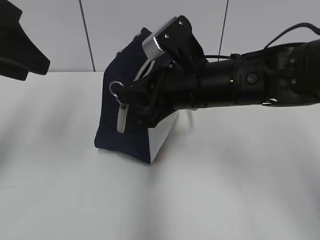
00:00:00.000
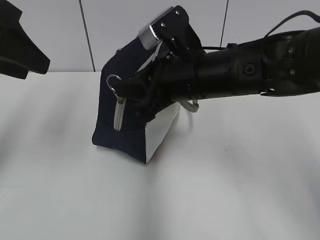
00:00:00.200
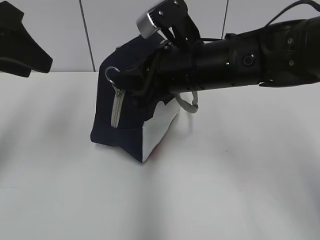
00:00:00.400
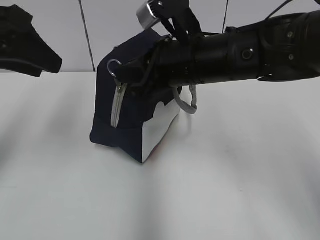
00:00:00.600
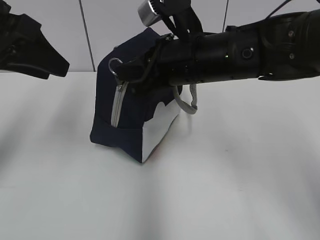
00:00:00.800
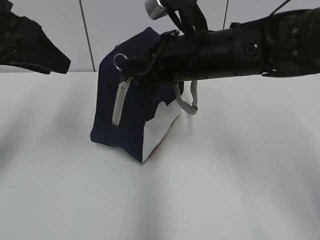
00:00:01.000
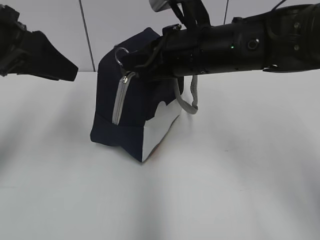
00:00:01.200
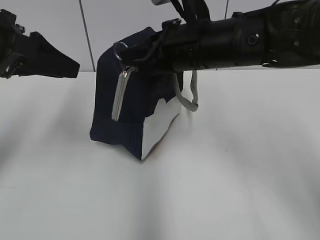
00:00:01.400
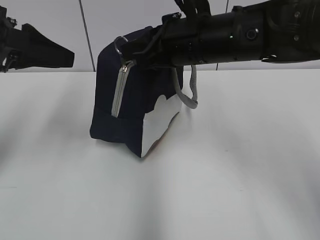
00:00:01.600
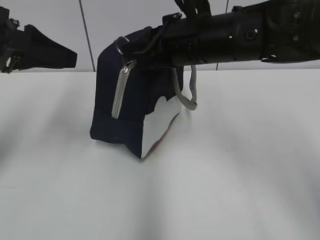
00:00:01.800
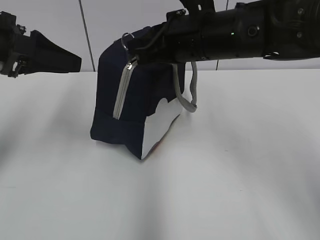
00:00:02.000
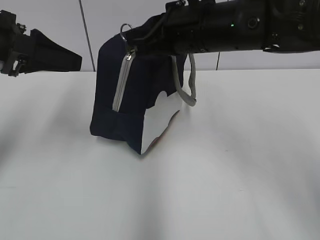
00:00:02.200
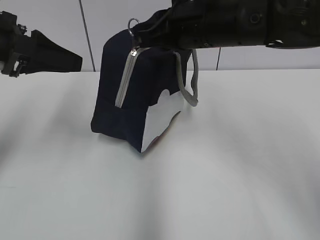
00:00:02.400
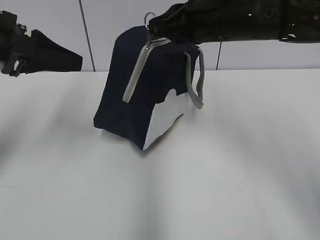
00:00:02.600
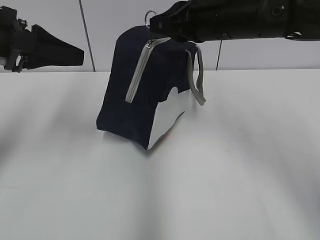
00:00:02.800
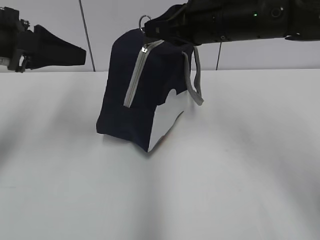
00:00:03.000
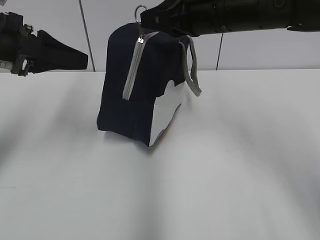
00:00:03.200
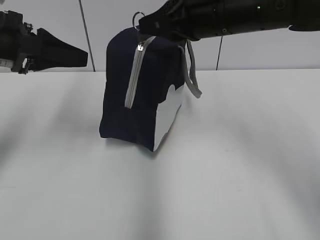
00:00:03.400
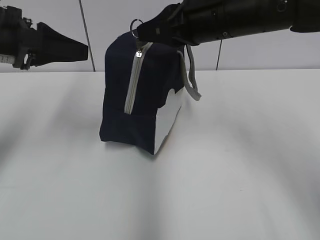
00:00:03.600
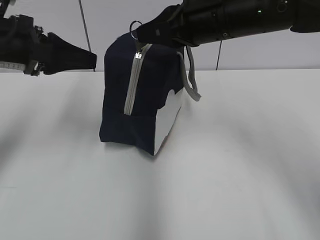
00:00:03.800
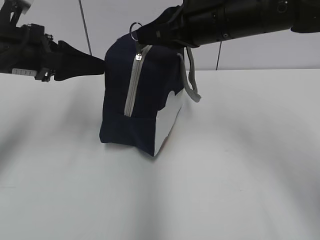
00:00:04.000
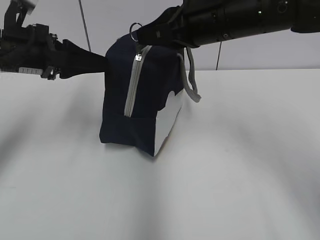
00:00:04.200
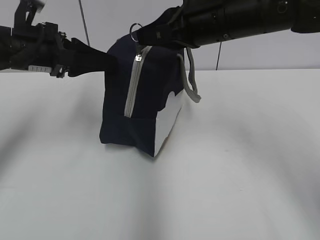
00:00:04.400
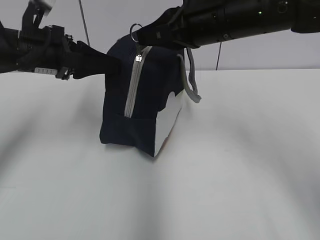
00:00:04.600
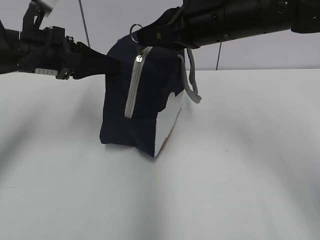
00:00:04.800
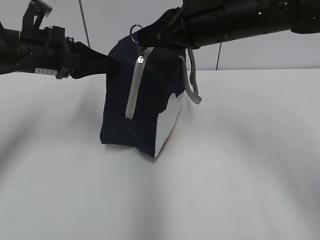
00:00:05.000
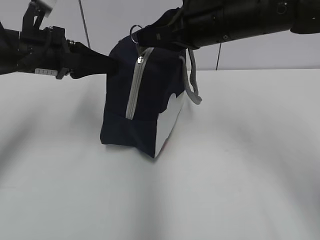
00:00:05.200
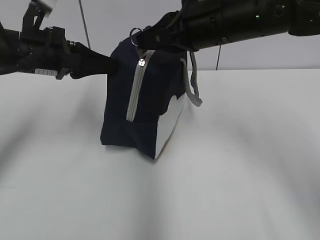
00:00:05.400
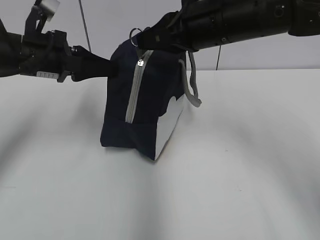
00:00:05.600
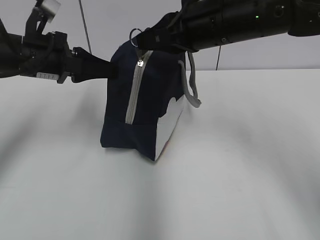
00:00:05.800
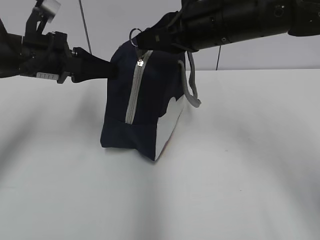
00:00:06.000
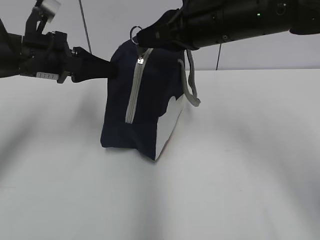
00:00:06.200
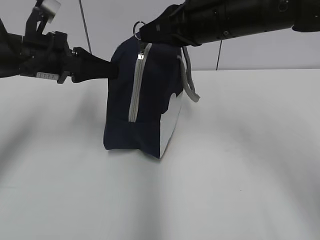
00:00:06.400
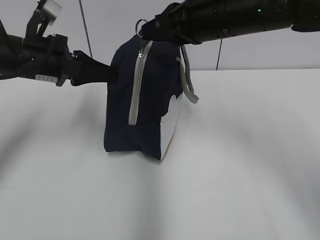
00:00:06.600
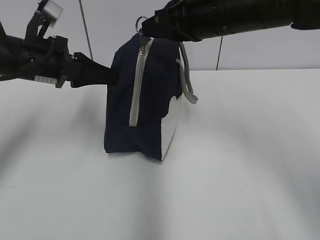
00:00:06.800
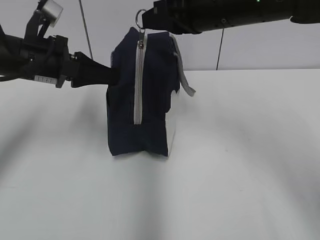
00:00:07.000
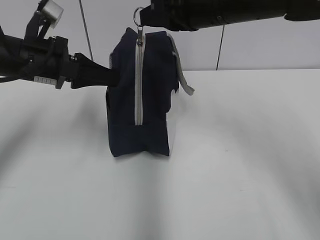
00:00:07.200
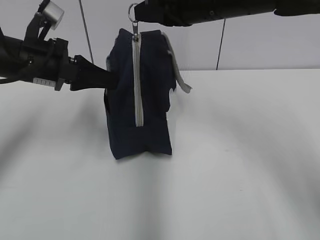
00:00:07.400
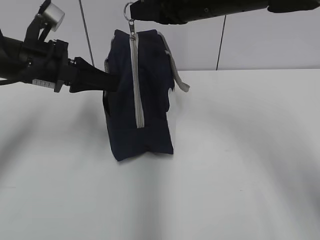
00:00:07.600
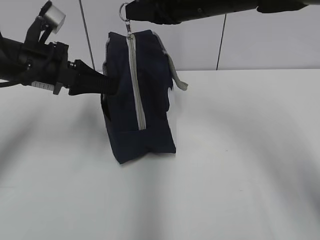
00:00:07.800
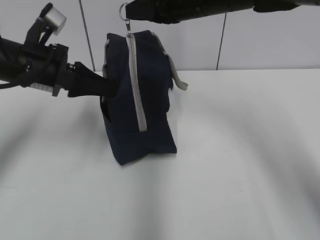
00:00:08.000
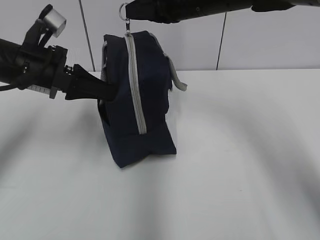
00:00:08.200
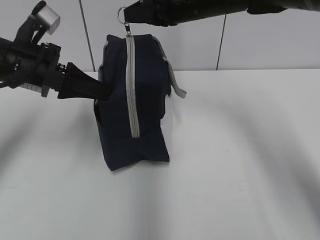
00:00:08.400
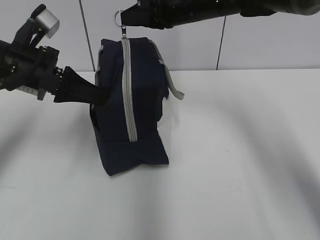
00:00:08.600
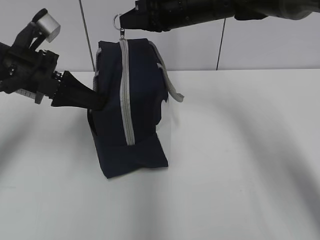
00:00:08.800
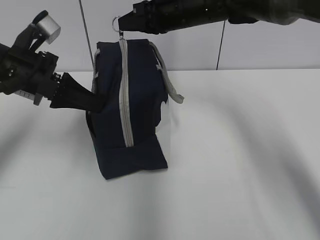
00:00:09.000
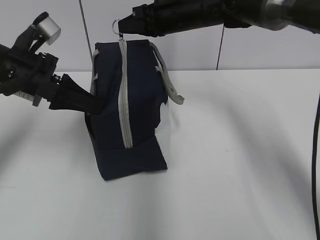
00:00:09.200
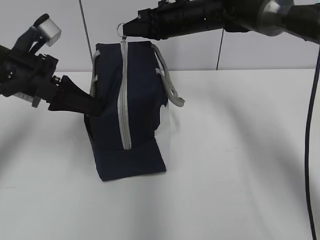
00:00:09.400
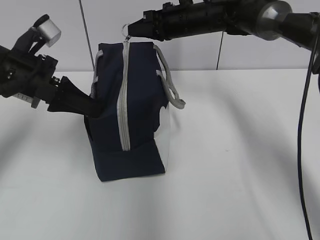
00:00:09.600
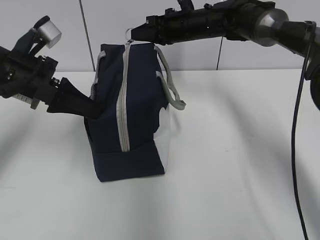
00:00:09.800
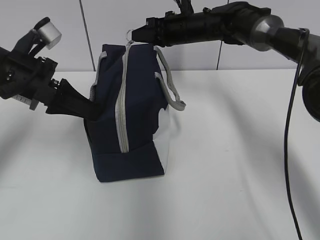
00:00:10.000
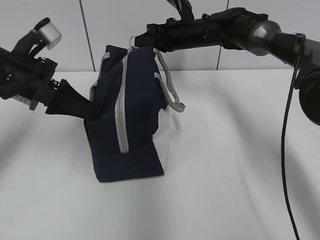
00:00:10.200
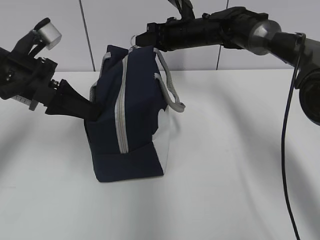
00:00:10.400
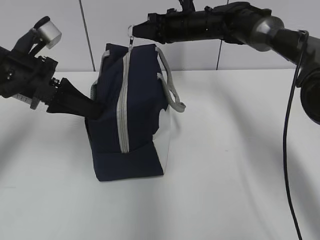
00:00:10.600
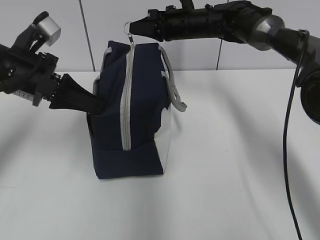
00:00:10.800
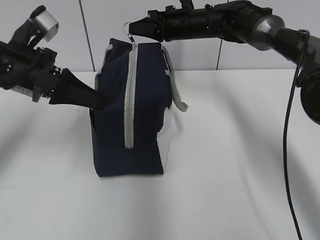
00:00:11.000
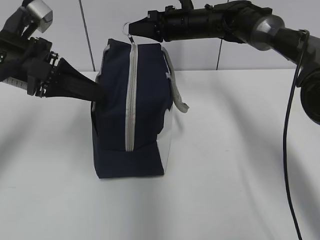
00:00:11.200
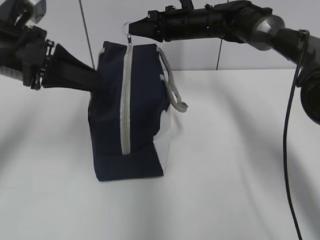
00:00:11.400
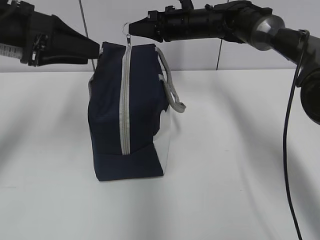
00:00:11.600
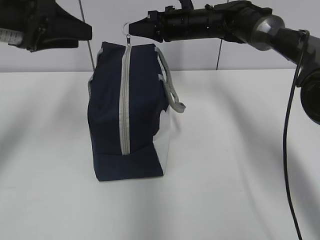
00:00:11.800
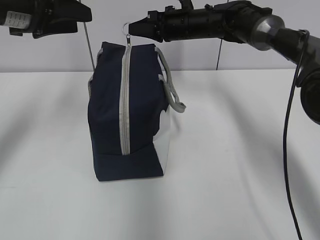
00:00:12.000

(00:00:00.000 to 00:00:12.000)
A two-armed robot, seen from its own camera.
Step, 00:00:00.000 - 00:00:05.800: Grab the lunch bag with your left hand.
00:00:00.000 - 00:00:01.600: The right gripper changes place by some 5 cm; the left gripper shifts by roughly 5 cm.
00:00:01.600 - 00:00:03.000: The grippers stay close to where they were, moving slightly.
00:00:03.000 - 00:00:04.400: The left gripper moves approximately 5 cm.
00:00:04.400 - 00:00:06.000: The left gripper closes up.
00:00:06.000 - 00:00:07.600: The grippers move only a little.
00:00:07.600 - 00:00:09.000: The right gripper moves forward, roughly 10 cm.
00:00:09.000 - 00:00:10.400: The right gripper shifts roughly 10 cm downward and forward.
00:00:10.400 - 00:00:12.000: The left gripper heads upward, covering about 10 cm, and opens its fingers.

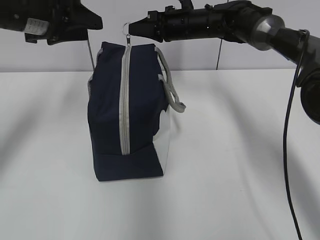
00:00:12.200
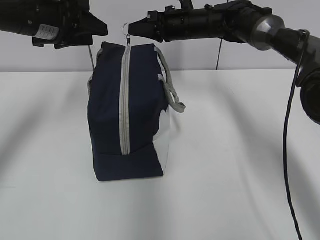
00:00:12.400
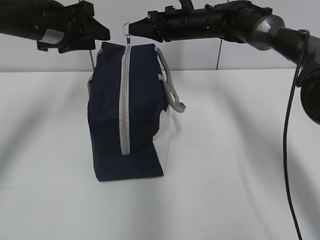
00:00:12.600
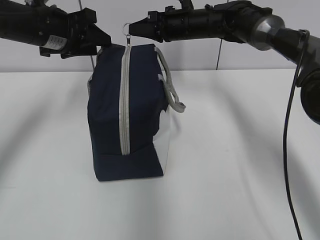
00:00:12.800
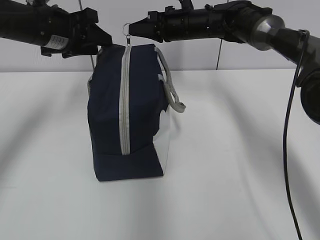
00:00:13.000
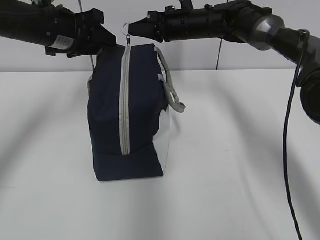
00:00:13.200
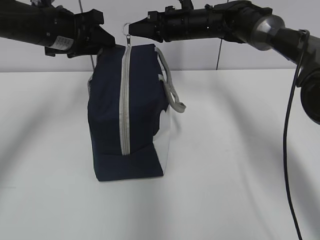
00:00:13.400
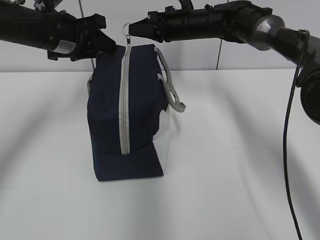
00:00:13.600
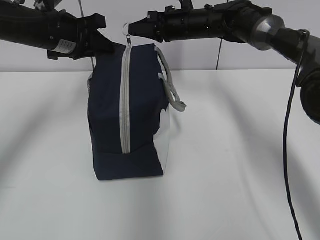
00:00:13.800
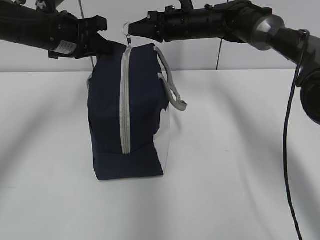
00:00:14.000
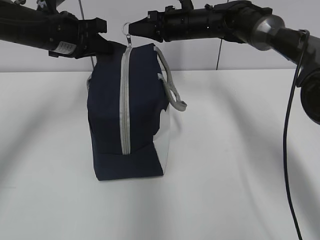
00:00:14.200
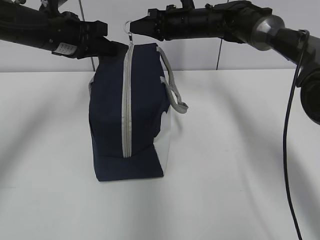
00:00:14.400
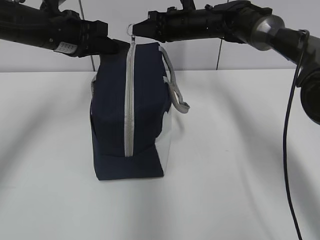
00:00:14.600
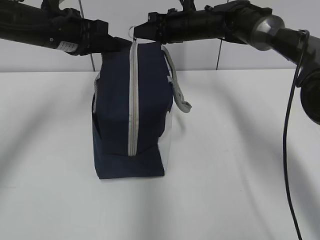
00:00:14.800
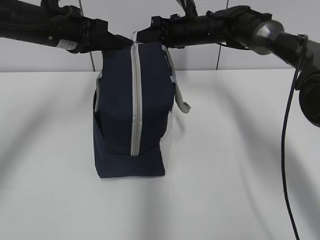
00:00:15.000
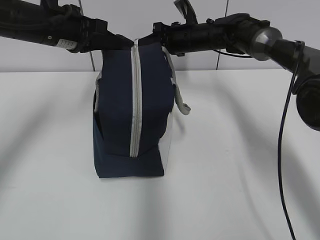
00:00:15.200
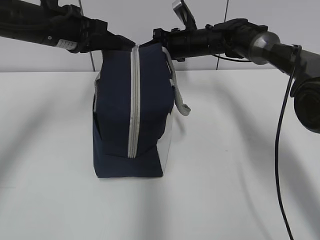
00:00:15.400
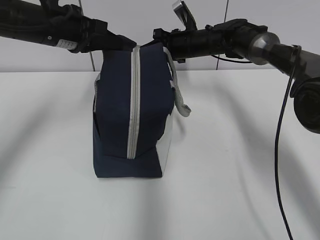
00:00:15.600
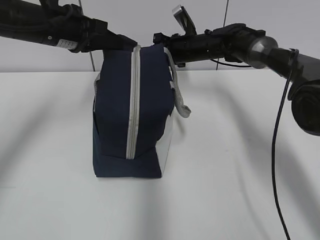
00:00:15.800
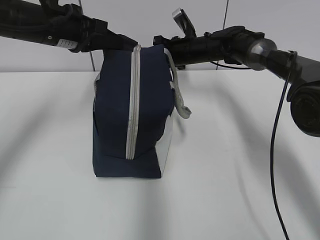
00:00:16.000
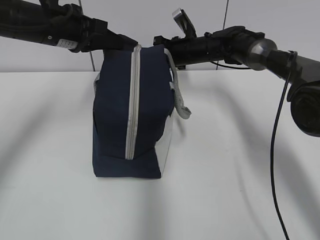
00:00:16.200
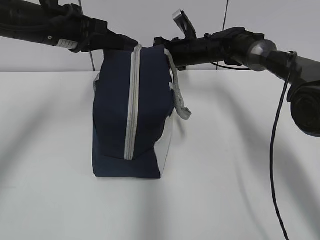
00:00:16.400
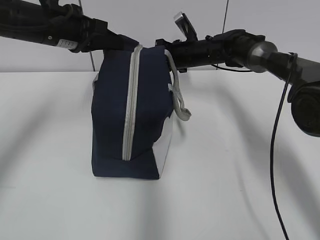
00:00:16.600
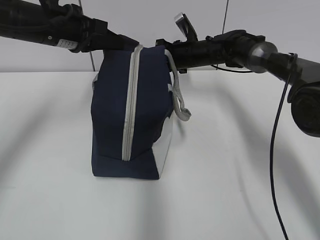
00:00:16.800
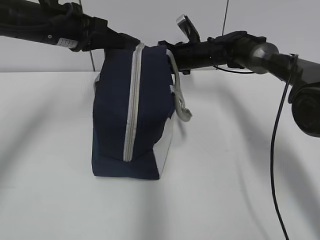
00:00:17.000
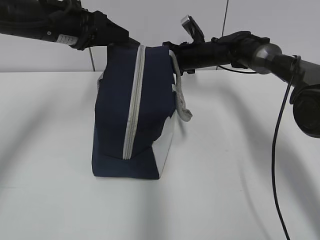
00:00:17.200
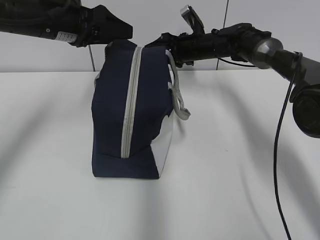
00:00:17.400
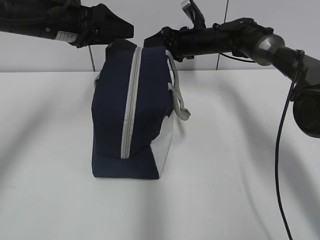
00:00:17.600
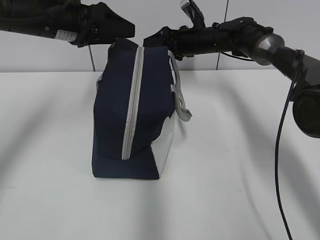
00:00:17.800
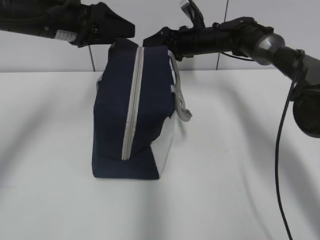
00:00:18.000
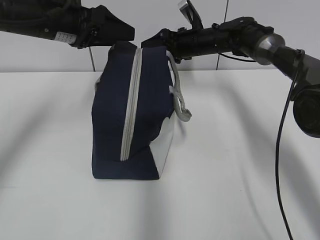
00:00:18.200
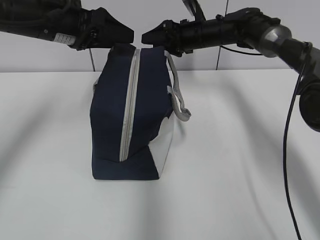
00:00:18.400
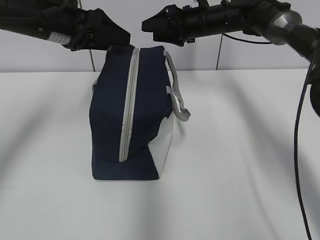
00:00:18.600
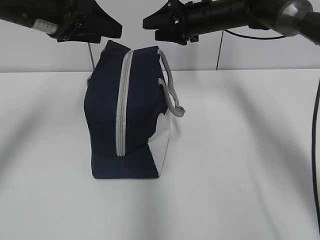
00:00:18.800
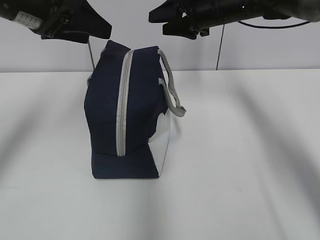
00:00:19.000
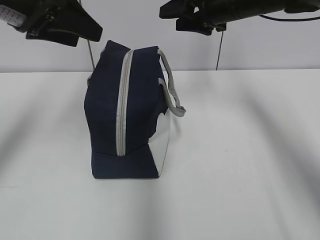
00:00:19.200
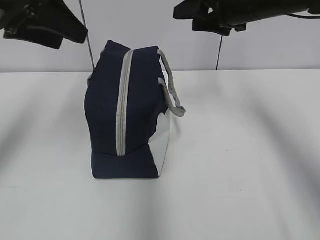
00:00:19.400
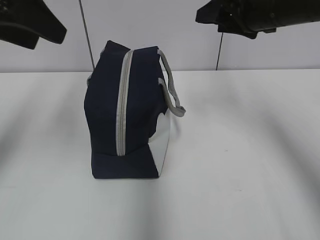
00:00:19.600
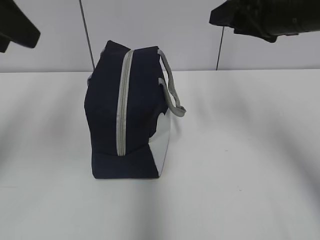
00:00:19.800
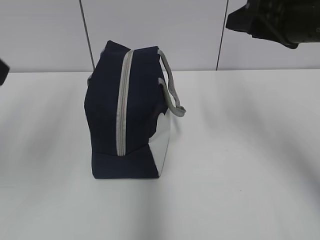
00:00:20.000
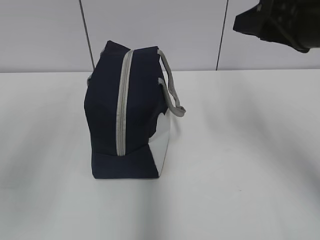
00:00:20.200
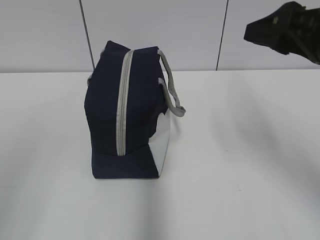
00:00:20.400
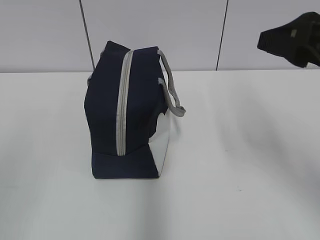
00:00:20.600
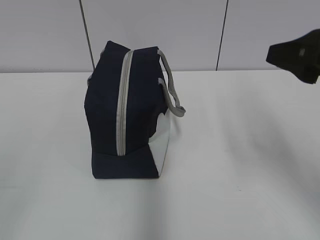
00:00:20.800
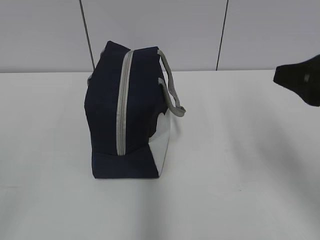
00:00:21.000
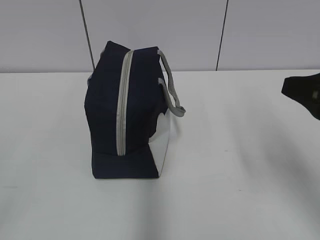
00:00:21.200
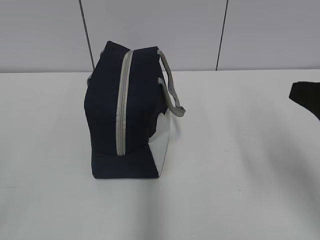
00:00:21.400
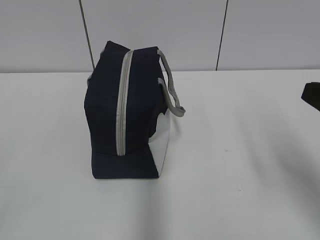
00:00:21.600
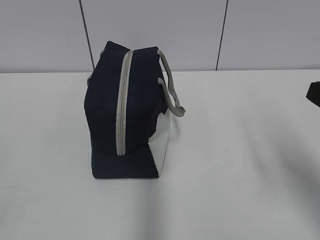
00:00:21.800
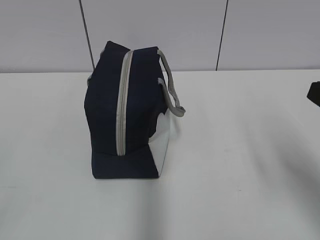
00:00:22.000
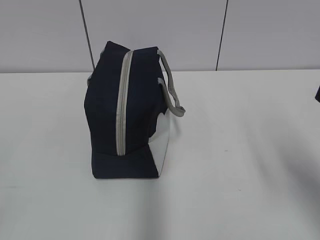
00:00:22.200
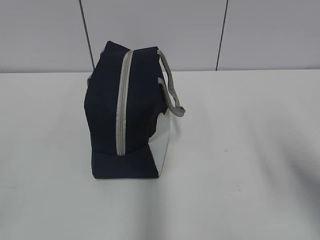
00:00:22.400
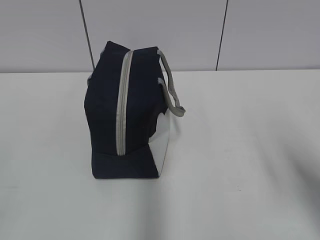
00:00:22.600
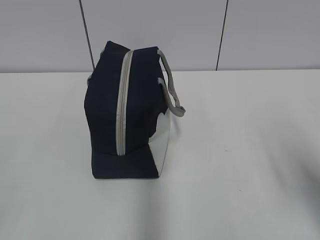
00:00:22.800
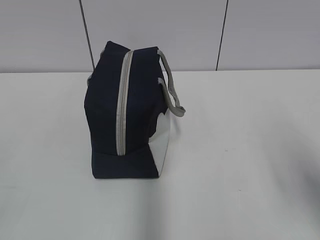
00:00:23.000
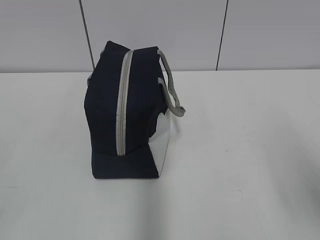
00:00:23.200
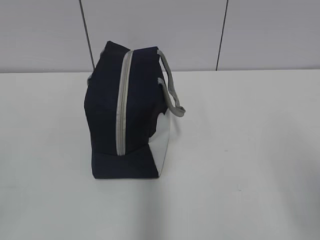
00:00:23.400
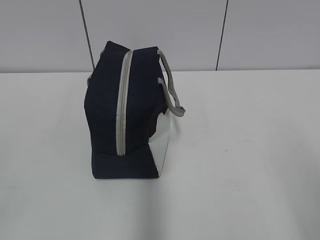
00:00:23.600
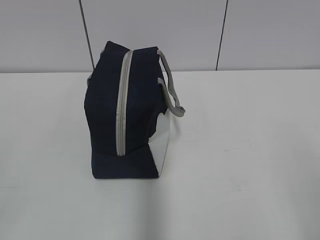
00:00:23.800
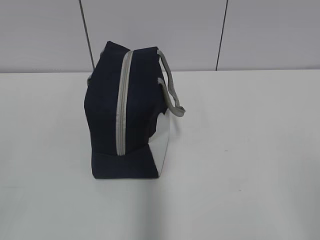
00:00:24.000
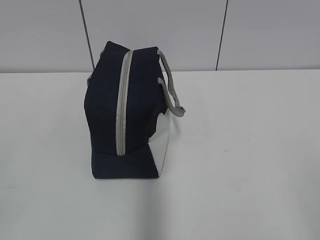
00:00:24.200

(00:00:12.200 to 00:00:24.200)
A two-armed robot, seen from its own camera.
Step, 00:00:12.200 - 00:00:18.000: Pull the zipper with your right hand.
Step, 00:00:18.400 - 00:00:18.600: Grab the lunch bag with your left hand.
00:00:12.200 - 00:00:13.800: The left gripper moves about 5 cm, and closes its fingers.
00:00:13.800 - 00:00:15.200: There are only small adjustments of the grippers.
00:00:15.200 - 00:00:16.600: The grippers stay close to where they were, moving slightly.
00:00:16.600 - 00:00:18.200: The left gripper opens its fingers, while the right gripper opens up.
00:00:18.200 - 00:00:19.800: Both grippers move backward and upward, roughly 20 cm.
00:00:19.800 - 00:00:21.200: The left gripper shifts some 25 cm backward, while the right gripper travels backward by roughly 15 cm.
00:00:21.200 - 00:00:22.600: The grippers move only a little.
00:00:22.600 - 00:00:24.200: The right gripper is displaced backward by about 15 cm.
